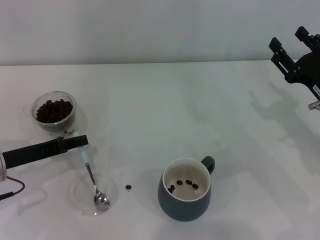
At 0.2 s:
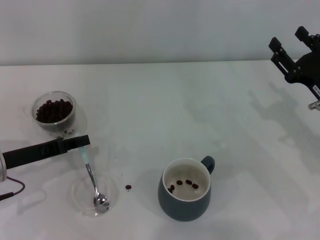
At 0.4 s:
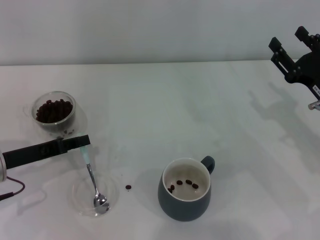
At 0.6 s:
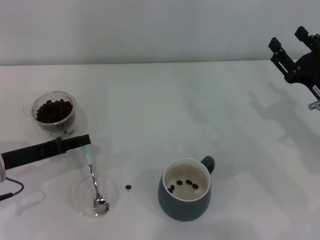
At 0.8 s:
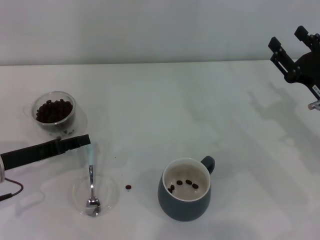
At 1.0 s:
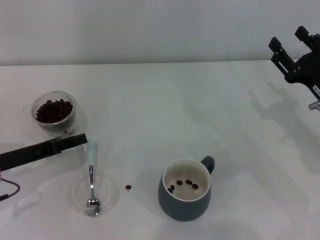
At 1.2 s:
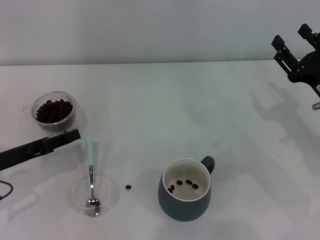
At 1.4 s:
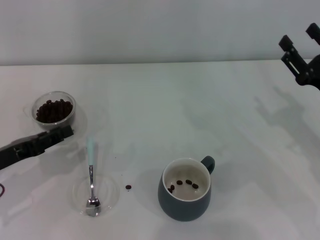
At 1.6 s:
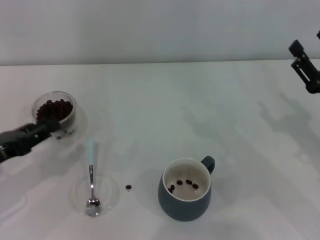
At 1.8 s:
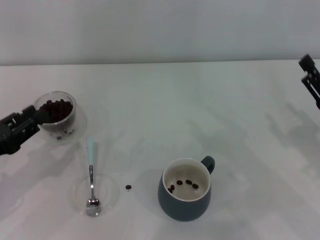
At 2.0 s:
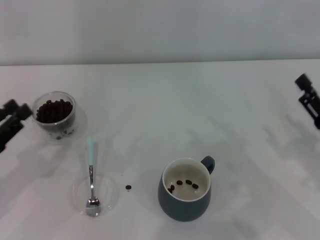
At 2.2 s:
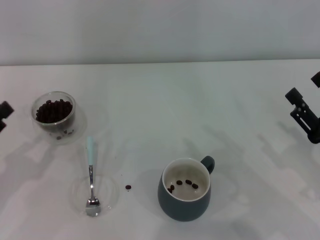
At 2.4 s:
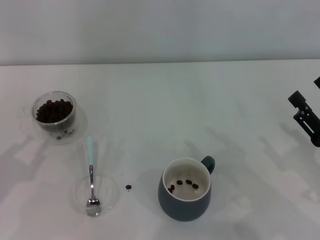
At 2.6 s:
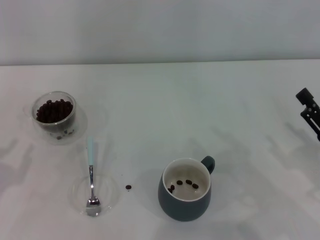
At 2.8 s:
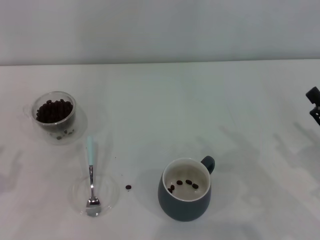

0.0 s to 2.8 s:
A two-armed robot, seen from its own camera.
Task of the whole recording: Use a blue spoon to take out the coffee beans from the glass and pour them into the gray cup.
0.0 to 1.4 s: The left gripper opens.
1.4 to 2.8 s: Both grippers travel together backward, some 10 cm.
